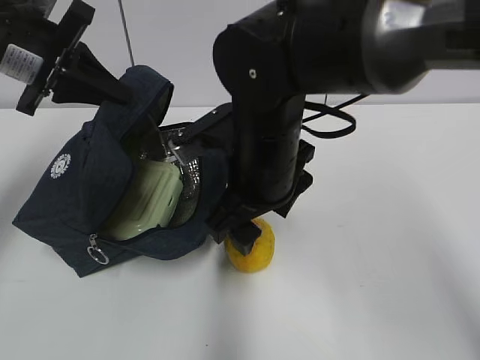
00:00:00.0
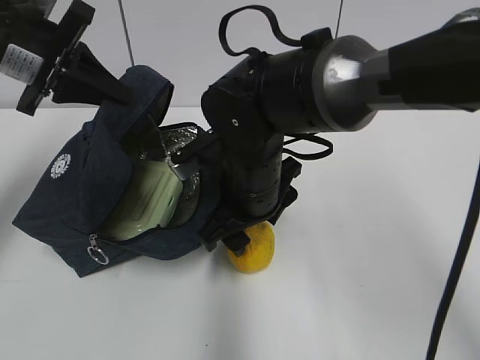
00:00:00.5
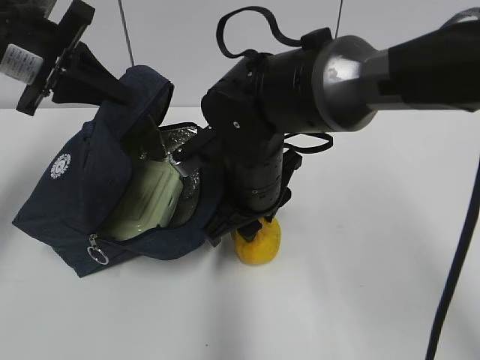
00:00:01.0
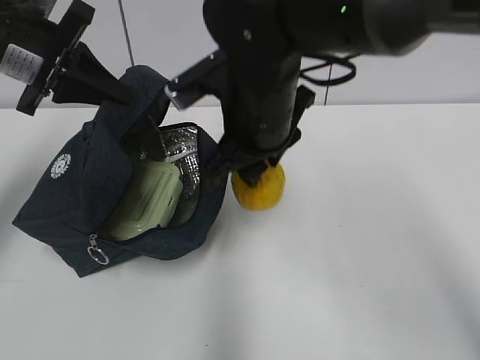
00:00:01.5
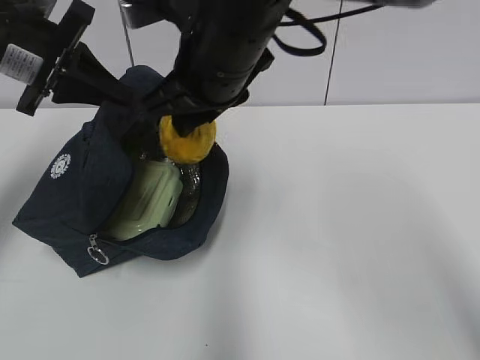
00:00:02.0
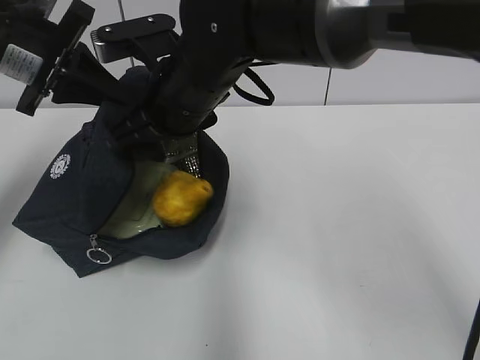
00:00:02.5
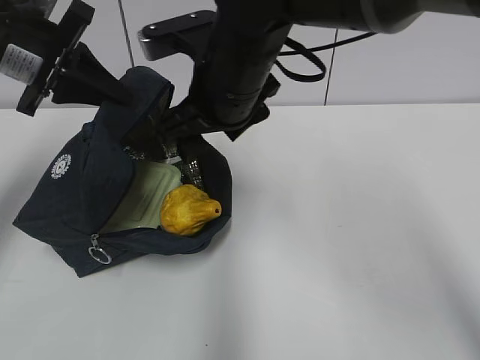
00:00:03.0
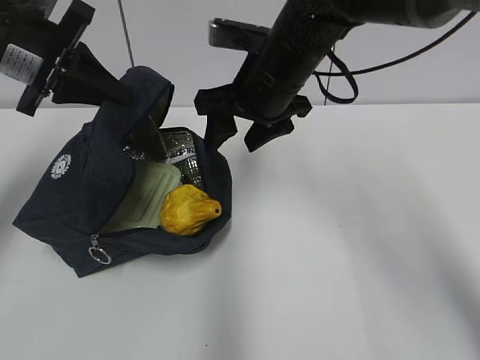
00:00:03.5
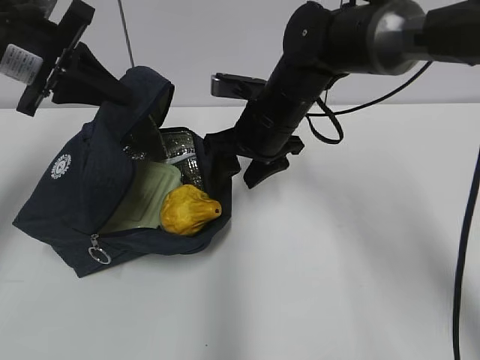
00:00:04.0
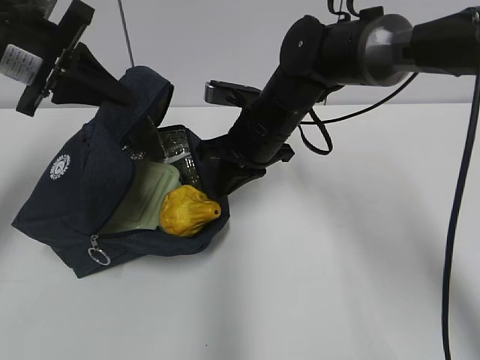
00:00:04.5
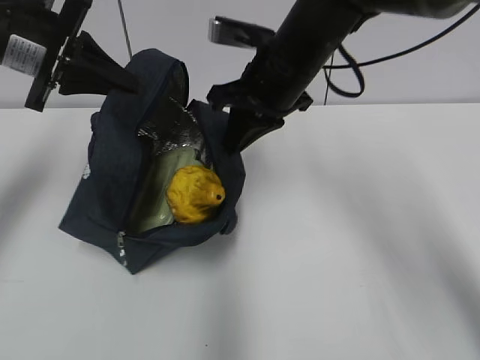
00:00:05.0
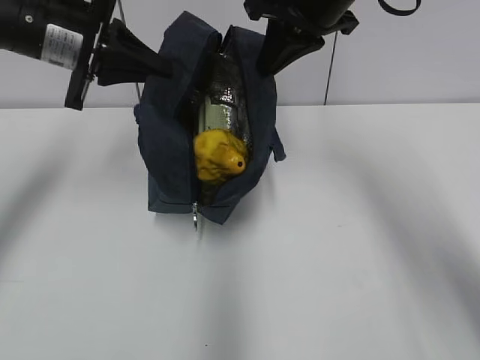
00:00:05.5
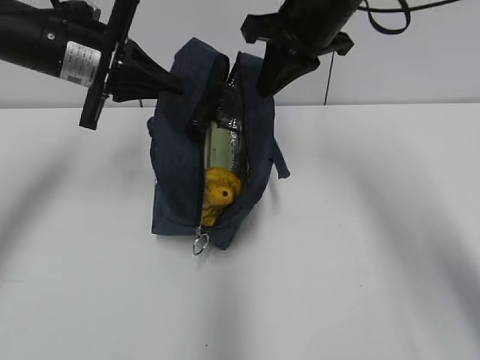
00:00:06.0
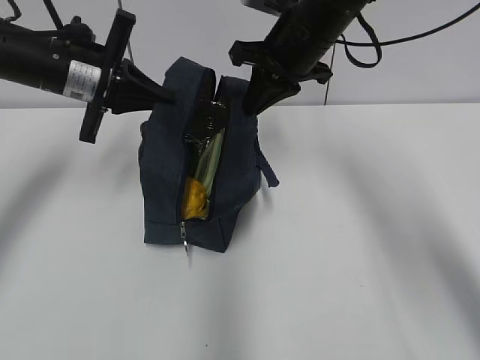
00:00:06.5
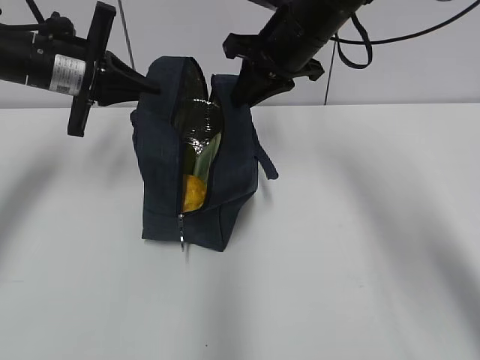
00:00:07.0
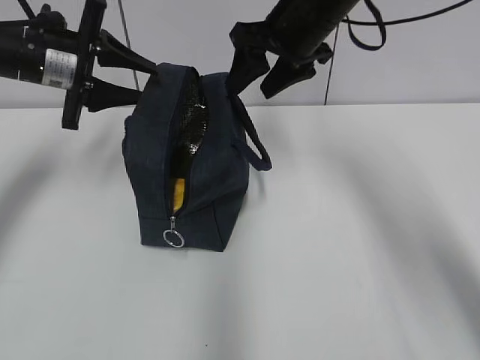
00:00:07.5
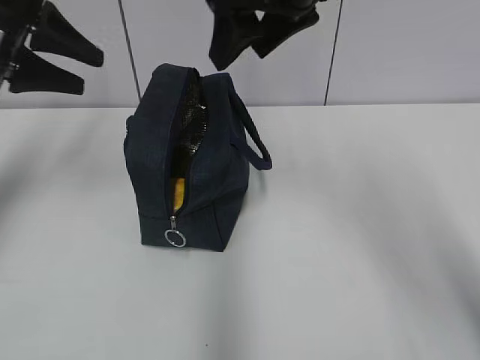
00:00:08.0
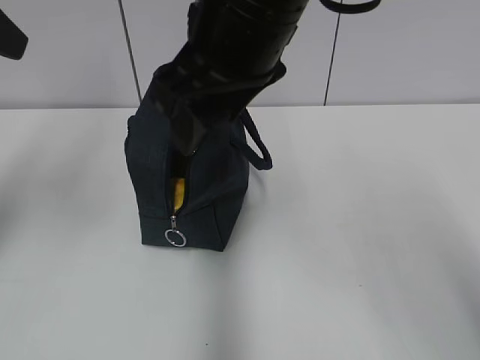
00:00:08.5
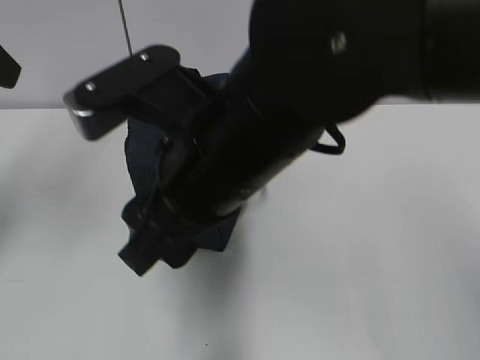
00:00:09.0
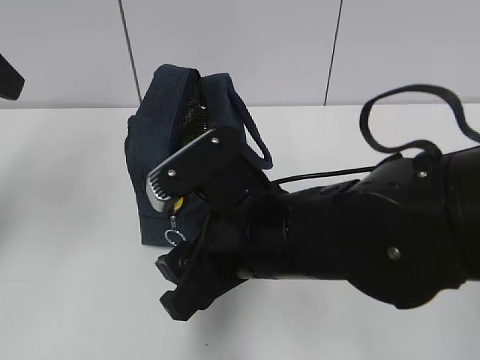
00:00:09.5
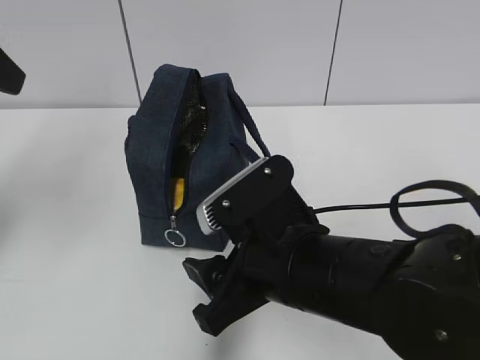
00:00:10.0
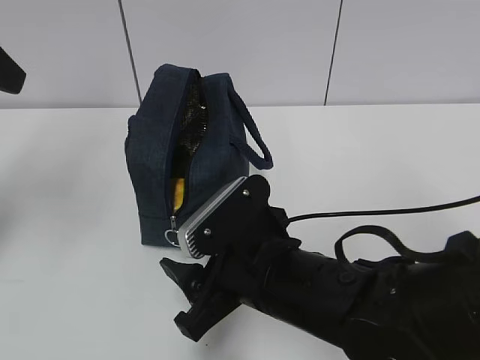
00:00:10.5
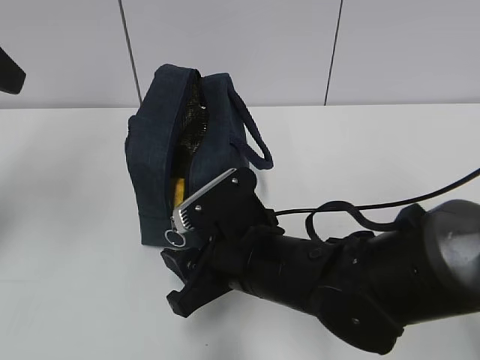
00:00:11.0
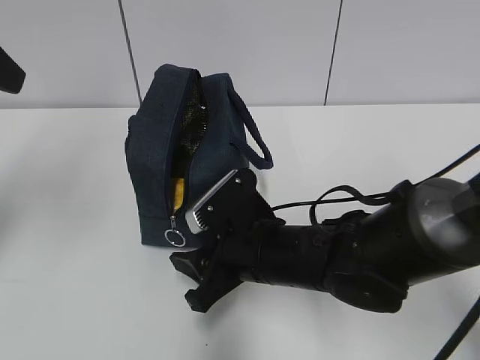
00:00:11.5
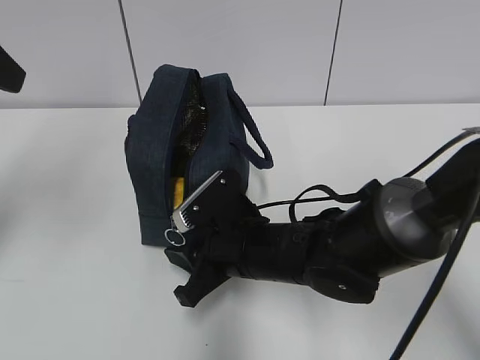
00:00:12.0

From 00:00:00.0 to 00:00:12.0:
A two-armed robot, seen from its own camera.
From 00:00:00.0 to 00:00:02.0: The right gripper moves upward, roughly 10 cm, and closes its fingers.
From 00:00:02.0 to 00:00:04.0: The right gripper shifts roughly 15 cm downward, forward and to the right, and opens its fingers.
From 00:00:04.0 to 00:00:06.0: The right gripper goes about 15 cm upward and to the right, and closes up. Meanwhile the left gripper changes place by some 5 cm.
From 00:00:06.0 to 00:00:08.0: The right gripper is displaced backward and upward by roughly 10 cm, and opens up. Meanwhile the left gripper moves to the left, about 10 cm, and opens its fingers.
From 00:00:08.0 to 00:00:10.0: The left gripper is displaced backward and upward by approximately 10 cm. Meanwhile the right gripper is displaced downward and backward by some 25 cm.
From 00:00:10.0 to 00:00:12.0: The right gripper travels forward and downward by approximately 10 cm, and closes.

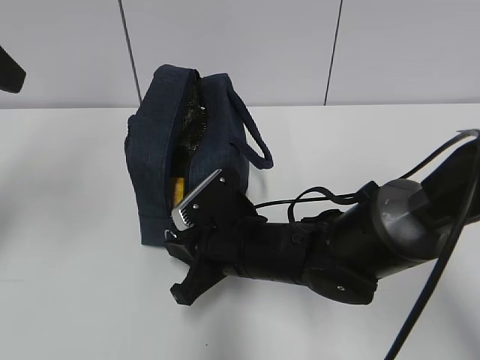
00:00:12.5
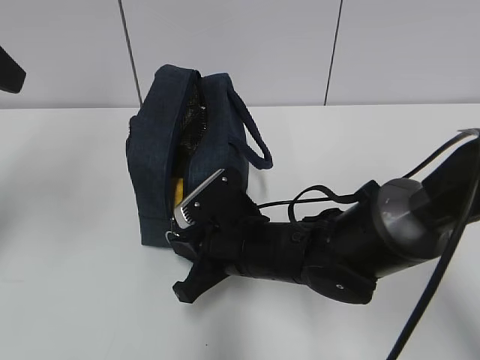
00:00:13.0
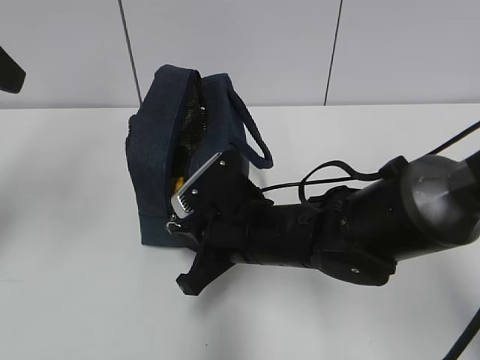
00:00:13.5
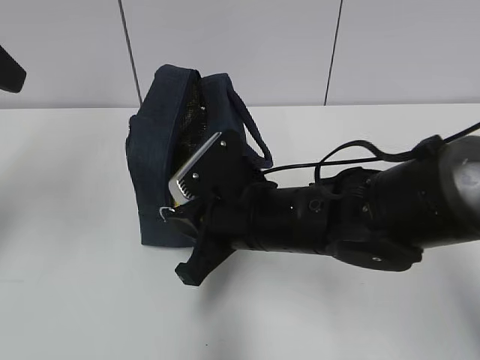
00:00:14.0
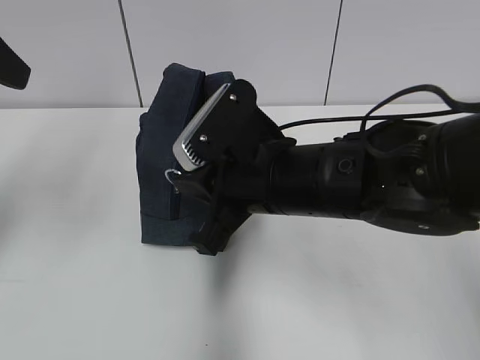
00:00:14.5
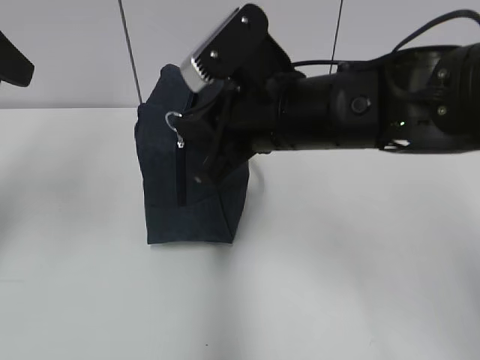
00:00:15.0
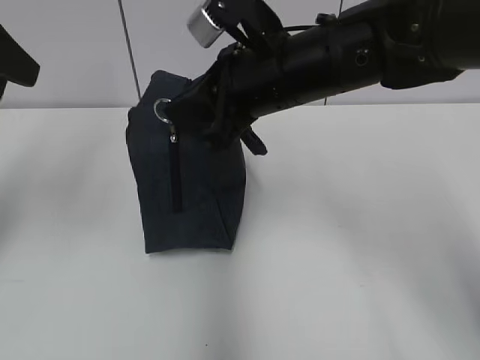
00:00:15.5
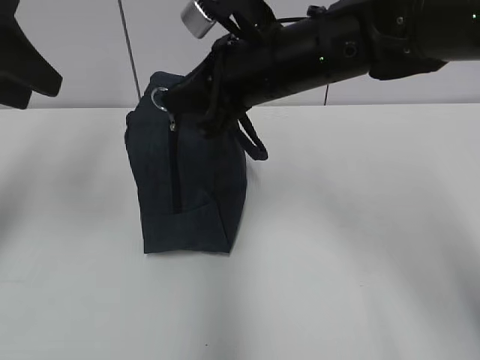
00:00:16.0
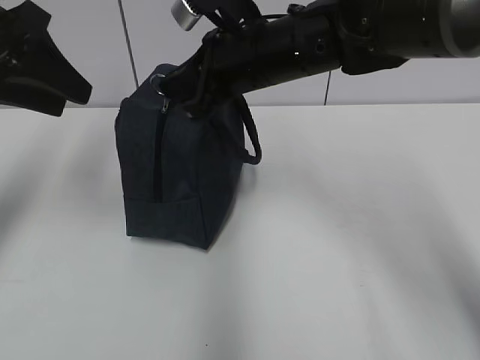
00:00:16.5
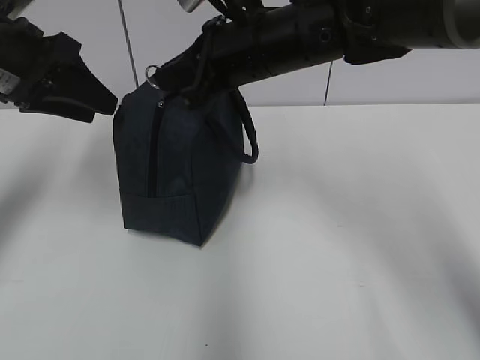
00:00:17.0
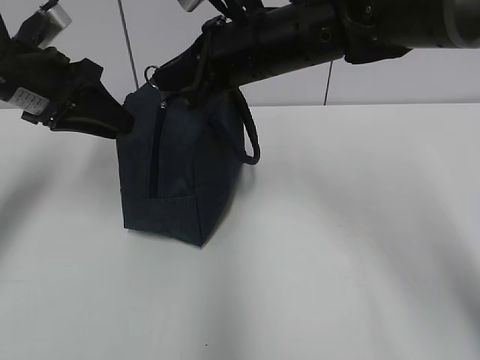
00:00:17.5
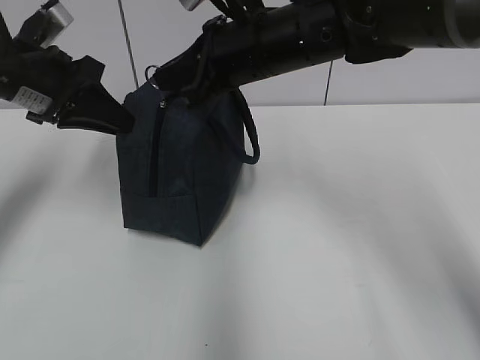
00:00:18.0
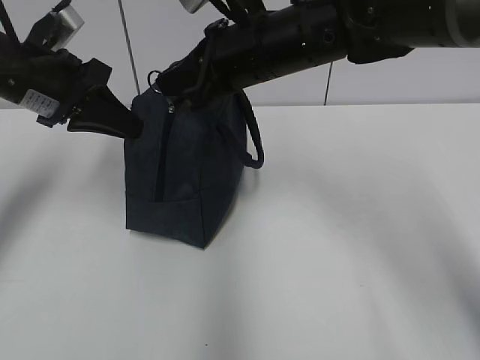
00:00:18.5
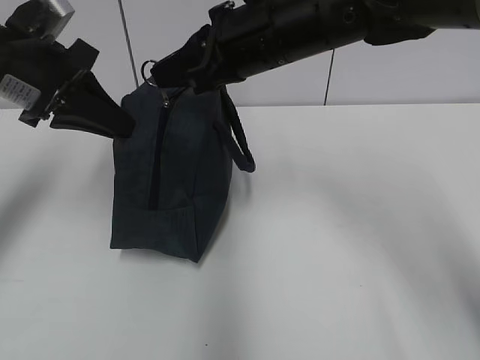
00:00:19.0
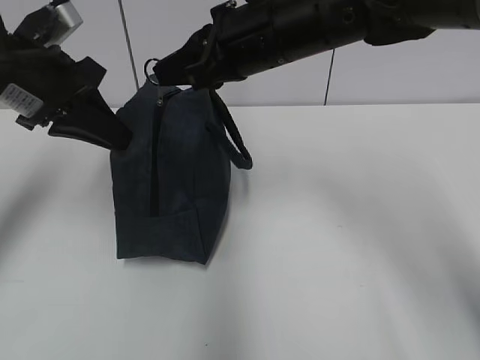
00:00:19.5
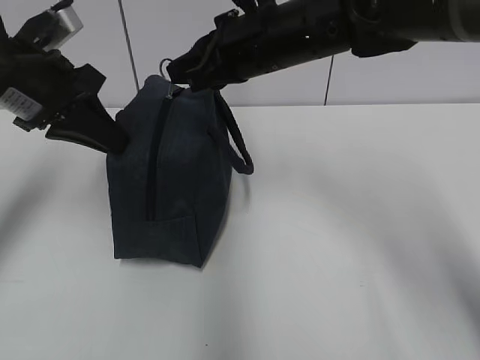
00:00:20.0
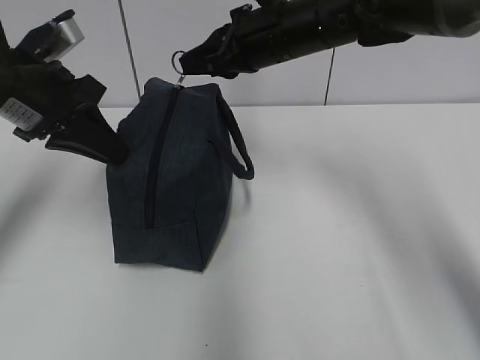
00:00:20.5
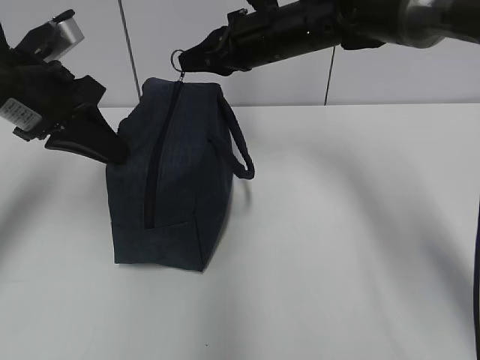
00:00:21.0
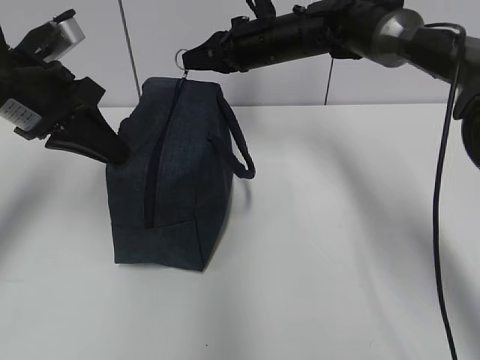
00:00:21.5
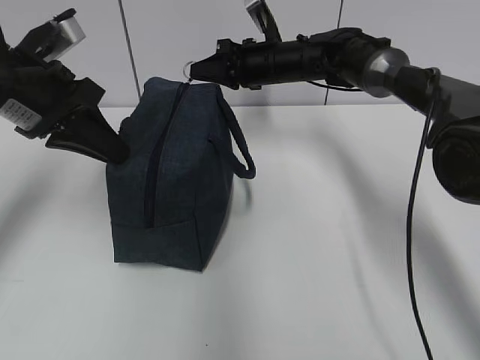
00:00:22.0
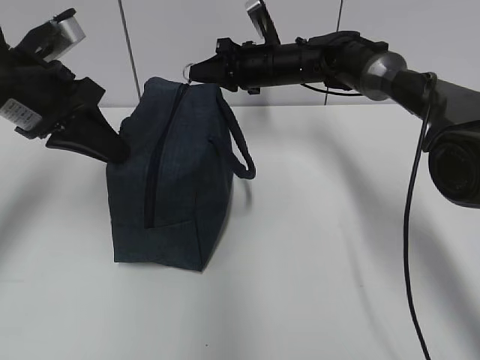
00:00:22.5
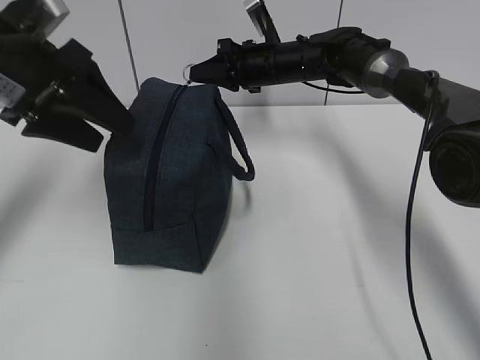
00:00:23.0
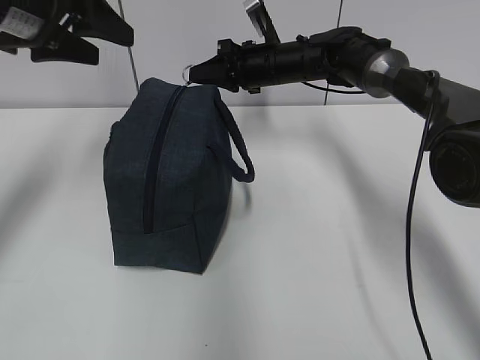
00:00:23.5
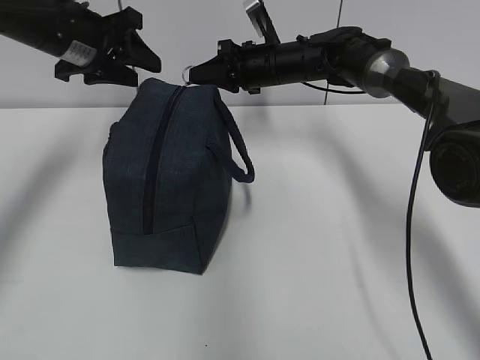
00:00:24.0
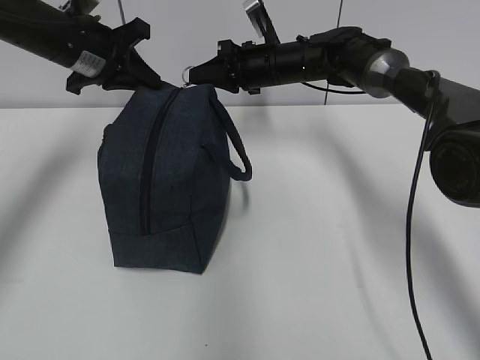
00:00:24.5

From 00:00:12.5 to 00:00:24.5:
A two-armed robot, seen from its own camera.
From 00:00:12.5 to 00:00:14.5: The right gripper travels upward by about 10 cm.
From 00:00:14.5 to 00:00:16.5: The left gripper shifts by about 5 cm; the right gripper travels forward and upward by roughly 15 cm.
From 00:00:16.5 to 00:00:18.5: The left gripper heads downward, covering roughly 5 cm, and closes up.
From 00:00:18.5 to 00:00:20.5: The right gripper changes place by about 5 cm.
From 00:00:20.5 to 00:00:22.5: The right gripper moves forward and downward, about 15 cm.
From 00:00:22.5 to 00:00:24.5: The left gripper goes roughly 10 cm forward, and opens, then closes again.

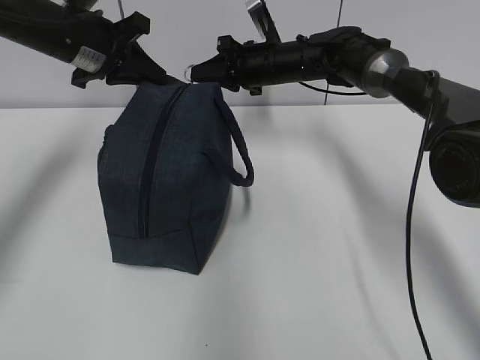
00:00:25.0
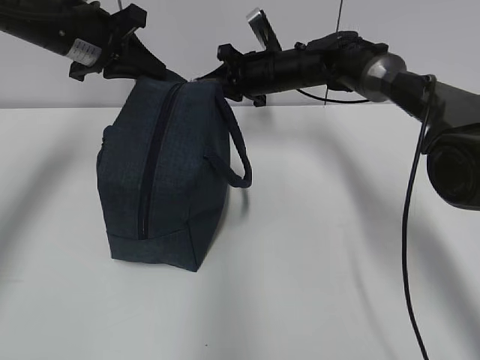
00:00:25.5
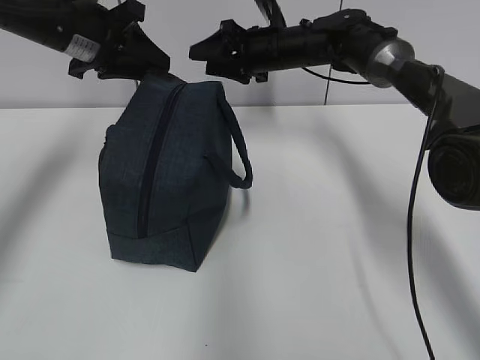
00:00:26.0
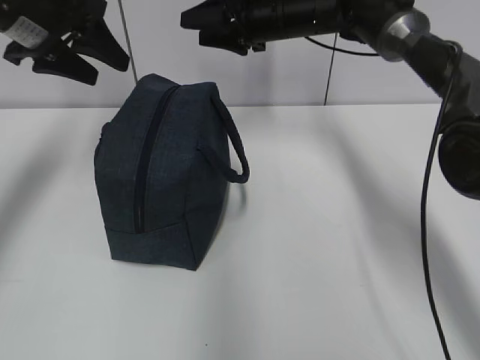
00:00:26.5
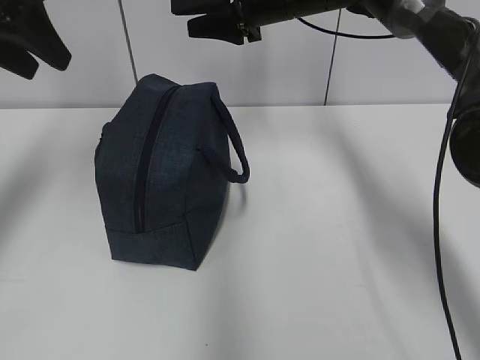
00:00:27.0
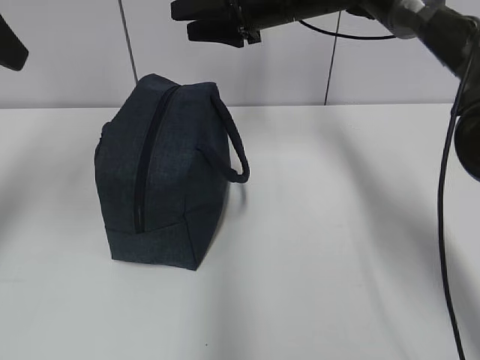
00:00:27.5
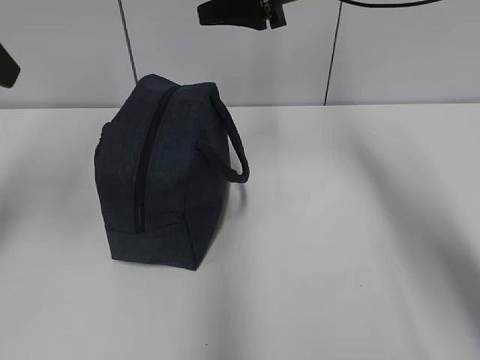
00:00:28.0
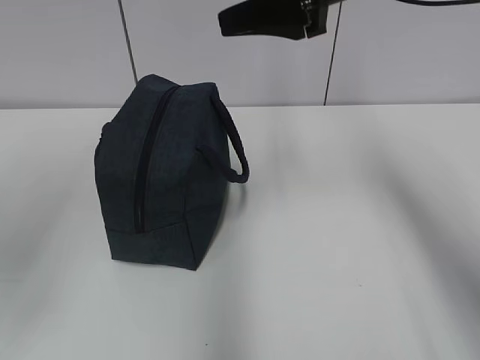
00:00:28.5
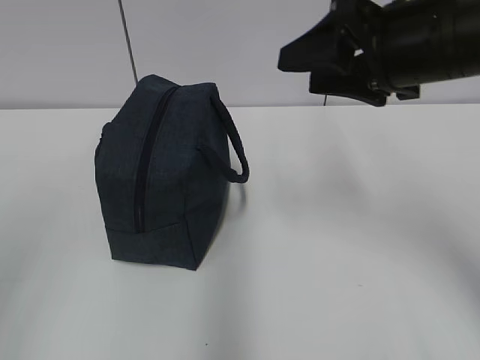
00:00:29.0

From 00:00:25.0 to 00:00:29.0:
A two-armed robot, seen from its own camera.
From 00:00:25.0 to 00:00:27.0: The left gripper heads backward, upward and to the left, covering approximately 15 cm, and opens up. Meanwhile the right gripper heads upward, covering approximately 10 cm, and opens.
From 00:00:27.0 to 00:00:29.0: The grippers both shift backward by about 25 cm.
